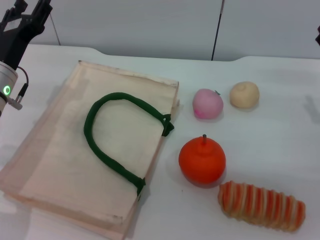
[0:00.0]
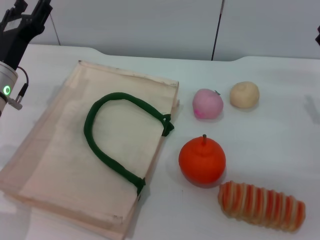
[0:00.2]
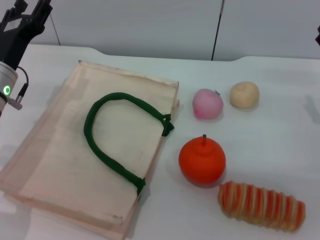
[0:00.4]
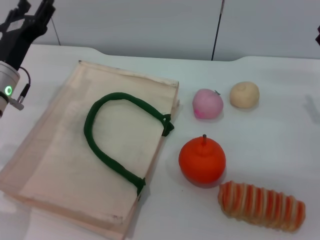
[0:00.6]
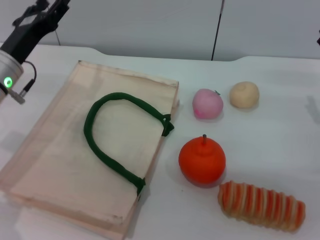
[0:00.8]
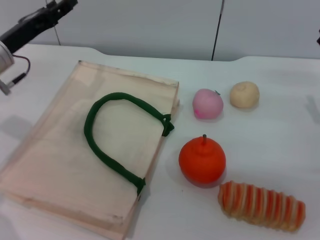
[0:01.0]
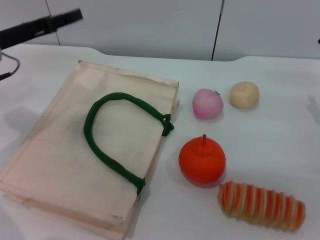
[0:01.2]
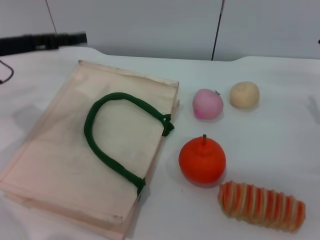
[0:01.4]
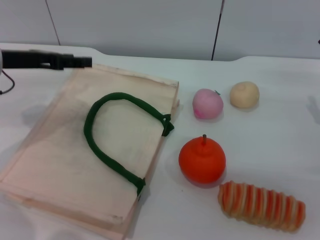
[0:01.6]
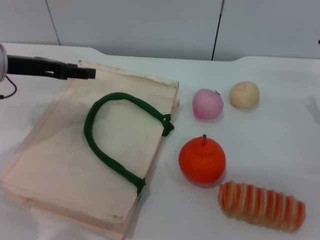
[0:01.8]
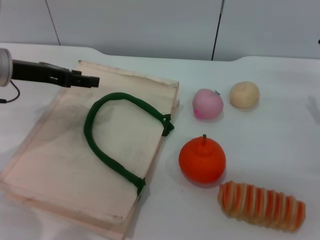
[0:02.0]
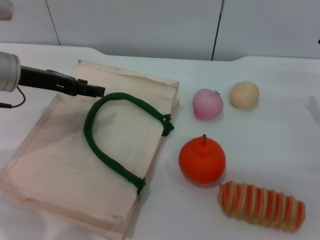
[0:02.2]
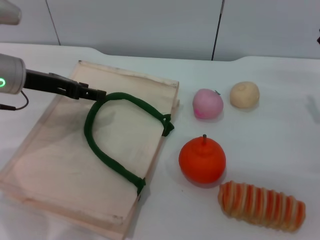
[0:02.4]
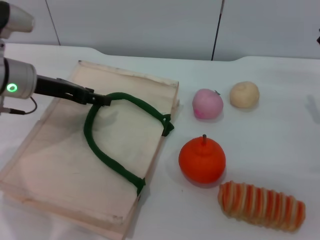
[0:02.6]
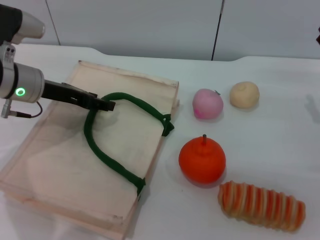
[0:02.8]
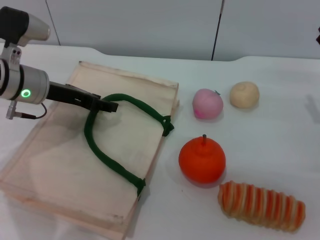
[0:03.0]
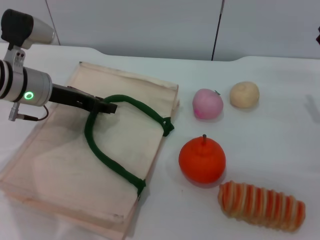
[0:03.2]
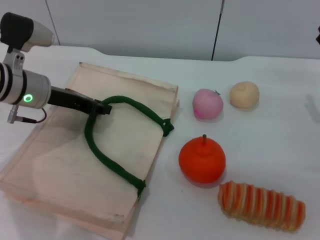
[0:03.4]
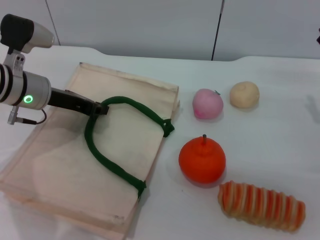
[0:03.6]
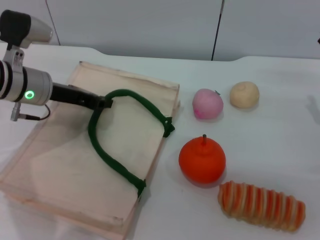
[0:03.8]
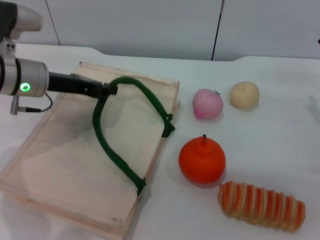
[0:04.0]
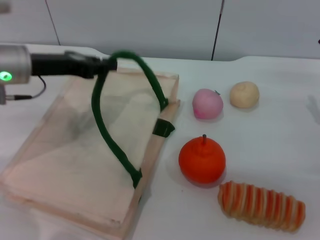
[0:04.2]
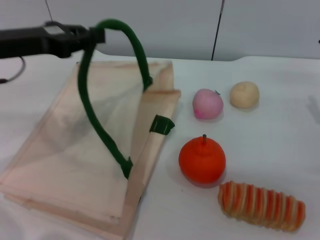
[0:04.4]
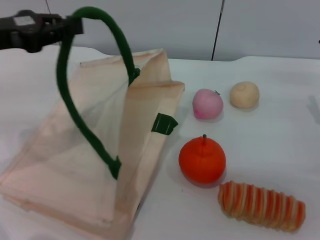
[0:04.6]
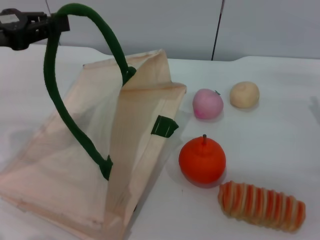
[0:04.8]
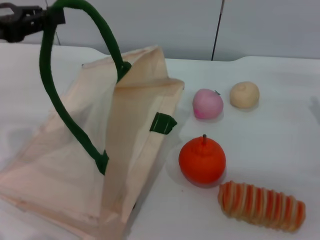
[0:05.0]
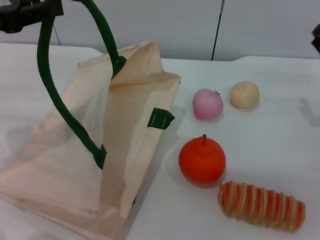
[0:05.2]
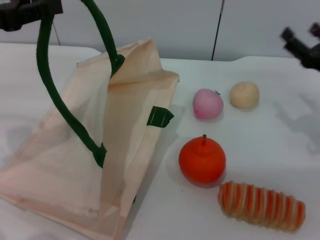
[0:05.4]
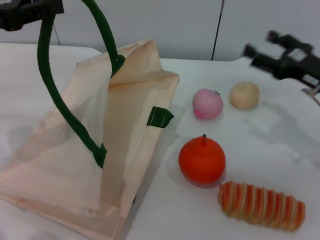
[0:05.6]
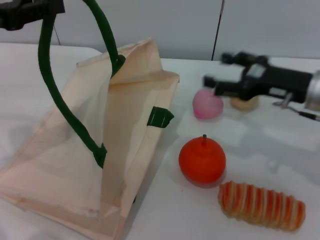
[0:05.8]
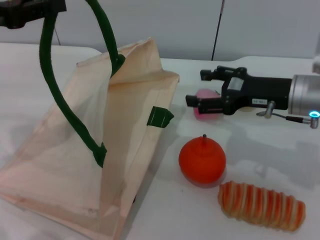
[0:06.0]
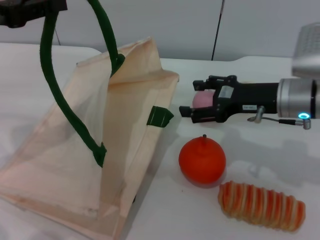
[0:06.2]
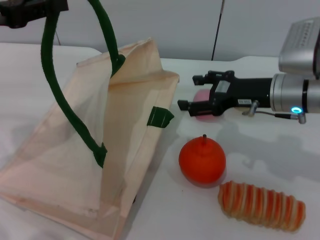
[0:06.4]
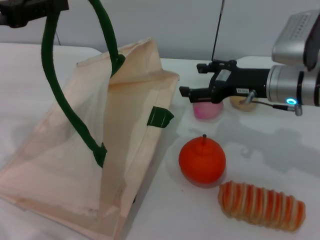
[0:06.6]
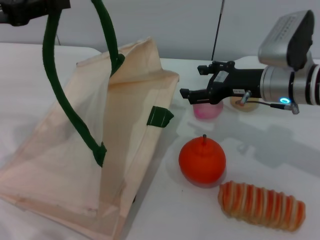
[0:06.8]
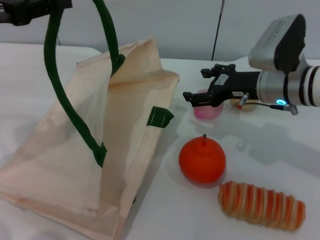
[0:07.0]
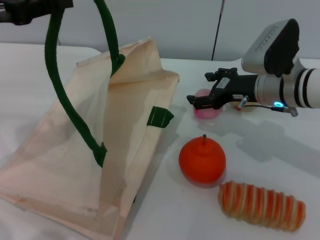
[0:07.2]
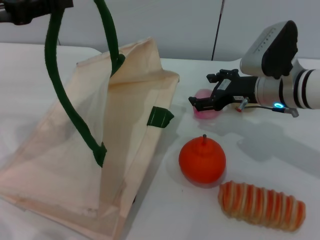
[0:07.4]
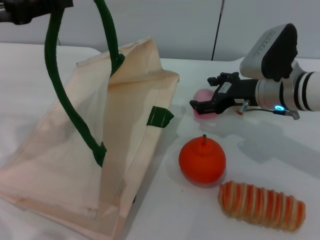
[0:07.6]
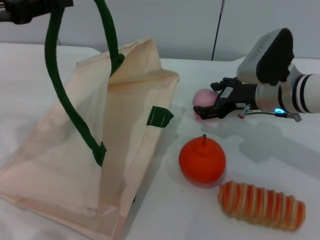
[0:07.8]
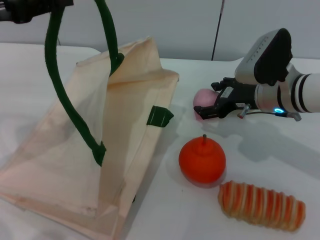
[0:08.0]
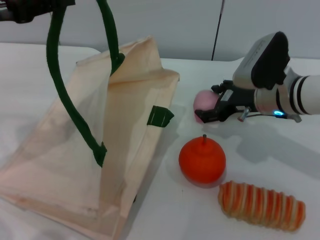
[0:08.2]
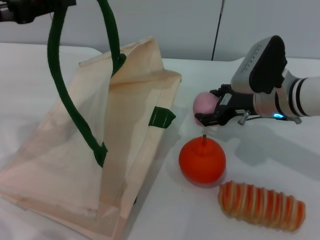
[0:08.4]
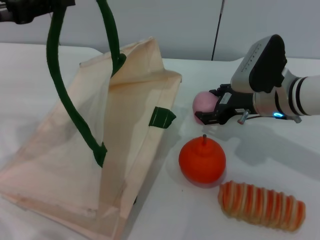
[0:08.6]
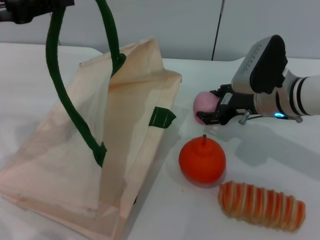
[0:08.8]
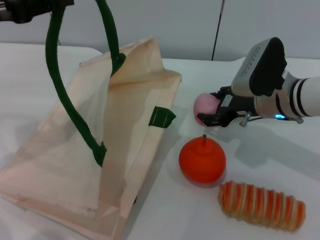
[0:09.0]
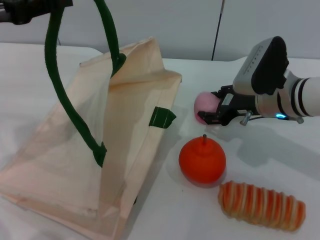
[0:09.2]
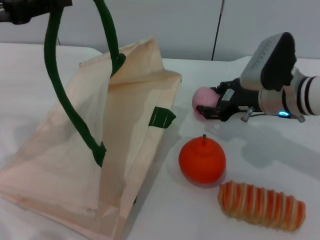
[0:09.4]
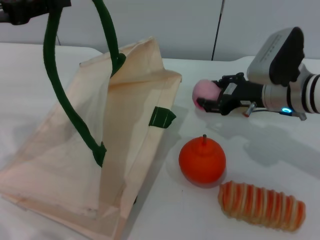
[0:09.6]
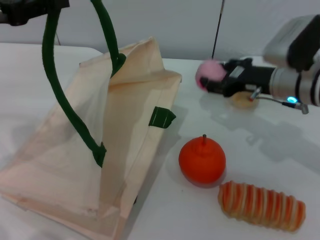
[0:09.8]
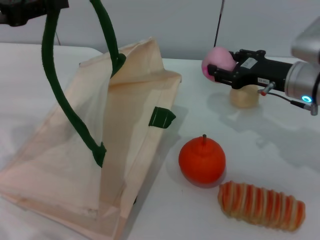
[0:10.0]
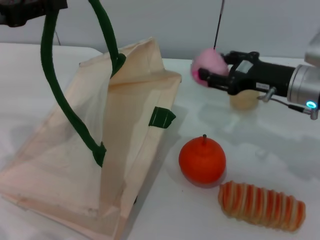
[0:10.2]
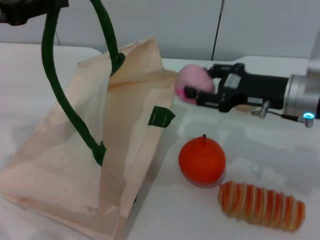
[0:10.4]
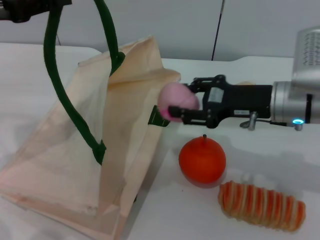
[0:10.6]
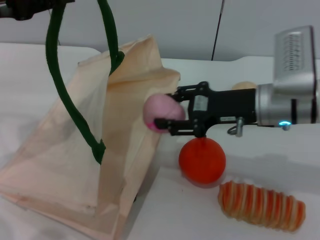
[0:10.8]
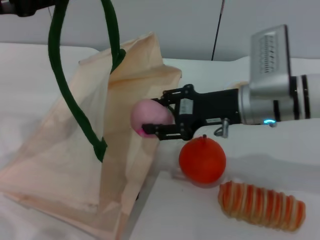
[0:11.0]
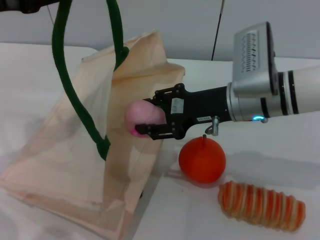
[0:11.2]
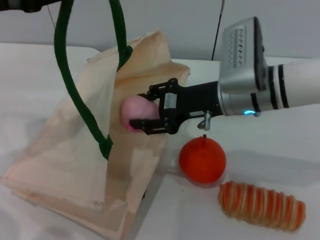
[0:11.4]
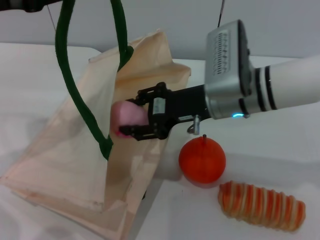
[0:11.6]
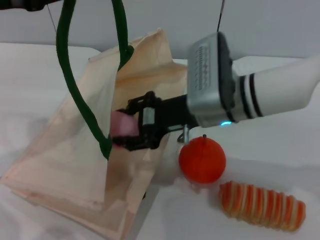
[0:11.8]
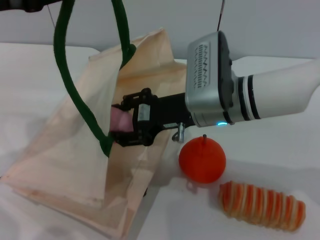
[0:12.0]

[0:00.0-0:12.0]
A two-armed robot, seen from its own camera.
Task of the whole recording: pick up the peach from the table and place it in the white handbag.
Step, 0:00.0 to 0:05.2: Lift the woven bag with the left gripper to open it.
Step, 0:05.4 to 0:09.8: Pick up the peach with the right gripper.
0:00.0 to 0:01.6: The left gripper heads upward, covering some 5 cm.
0:01.6 to 0:03.0: The left gripper heads to the right, covering roughly 5 cm.
0:03.0 to 0:04.4: The left gripper heads upward, covering about 5 cm, and closes its fingers.
0:04.4 to 0:06.0: The right gripper heads to the left, covering approximately 10 cm. The left gripper shifts by roughly 5 cm.
0:06.0 to 0:07.6: The right gripper ends up approximately 5 cm from where it was.
0:07.6 to 0:09.0: The right gripper closes.
0:09.0 to 0:10.4: The right gripper shifts by roughly 5 cm, and closes its fingers.
0:10.4 to 0:12.0: The right gripper shifts some 15 cm to the left.

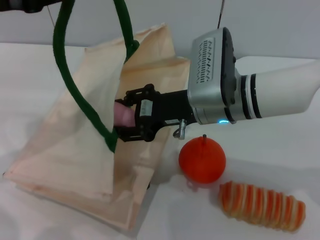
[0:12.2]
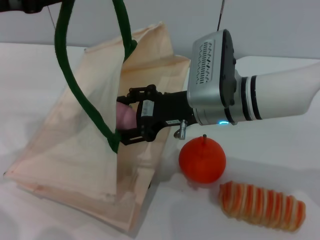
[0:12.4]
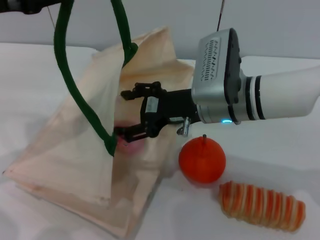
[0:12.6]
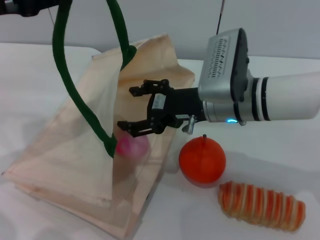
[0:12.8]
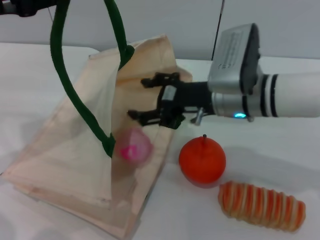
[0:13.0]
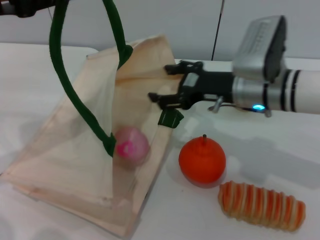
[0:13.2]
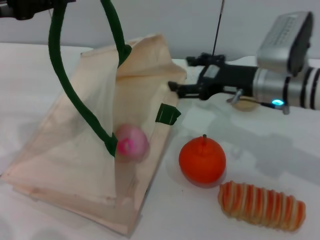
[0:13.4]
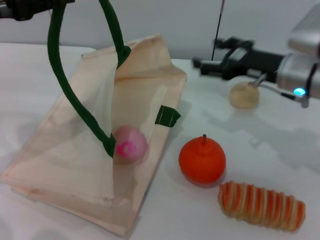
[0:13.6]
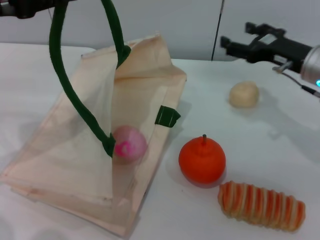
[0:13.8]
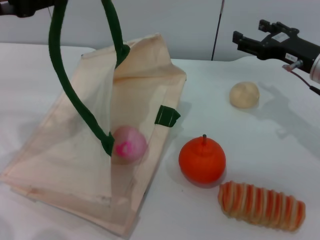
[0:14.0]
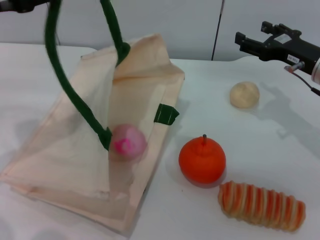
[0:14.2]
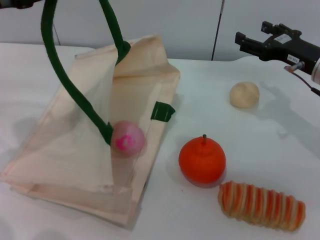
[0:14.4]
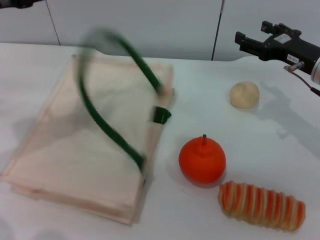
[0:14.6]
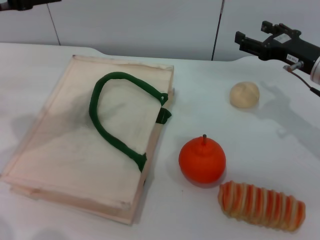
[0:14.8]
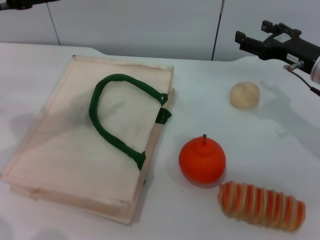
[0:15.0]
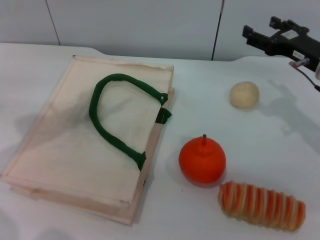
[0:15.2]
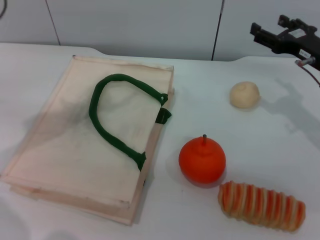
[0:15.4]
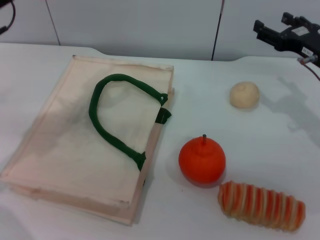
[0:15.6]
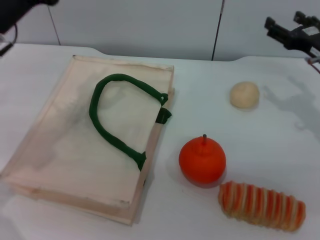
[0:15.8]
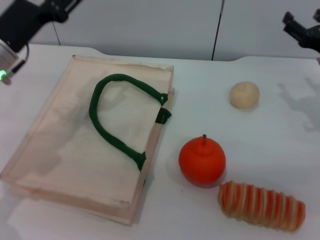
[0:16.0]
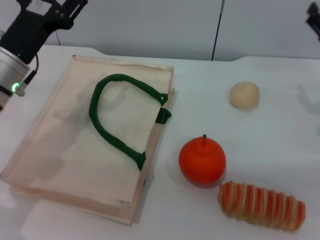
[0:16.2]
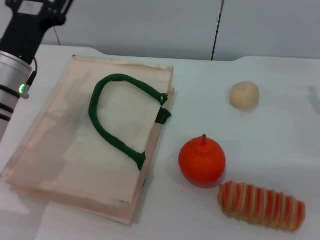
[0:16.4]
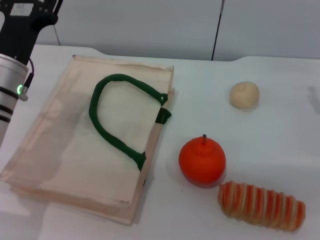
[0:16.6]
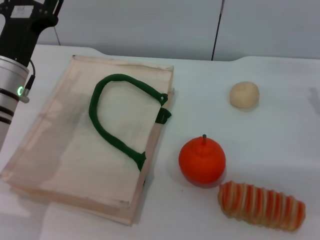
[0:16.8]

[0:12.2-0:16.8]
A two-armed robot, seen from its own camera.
Task of the whole recording: pick up the peach from the table and place it in the white handbag.
Step, 0:13.4 to 0:14.8: Lower the woven bag with the left gripper to close it.
0:12.2 to 0:13.8: The right gripper goes roughly 15 cm to the right, and opens its fingers.
0:13.8 to 0:15.2: The left gripper opens its fingers.
0:15.2 to 0:16.8: The left gripper moves downward and to the right, roughly 15 cm. The right gripper changes place by about 5 cm.
